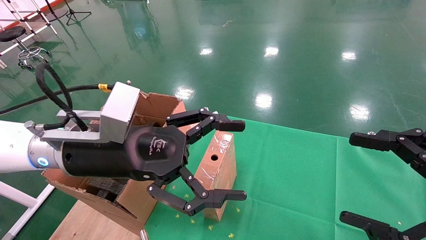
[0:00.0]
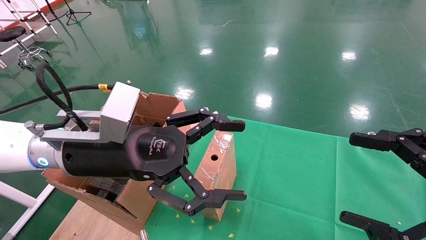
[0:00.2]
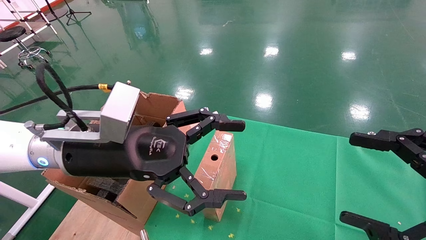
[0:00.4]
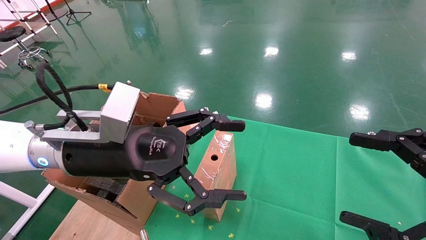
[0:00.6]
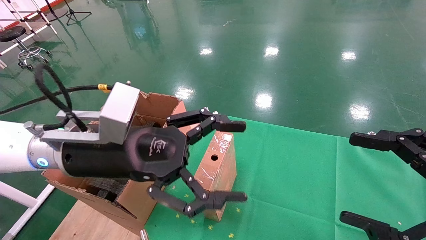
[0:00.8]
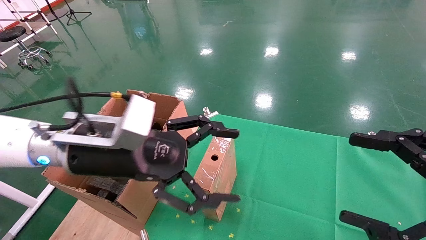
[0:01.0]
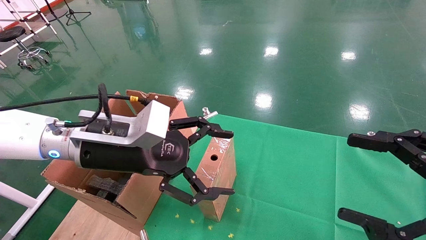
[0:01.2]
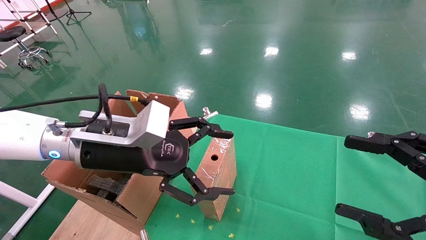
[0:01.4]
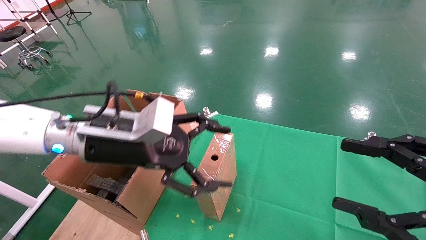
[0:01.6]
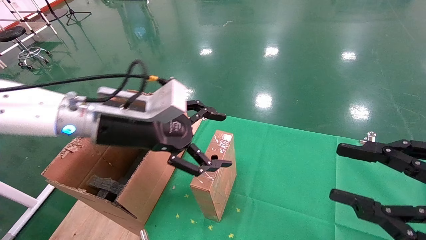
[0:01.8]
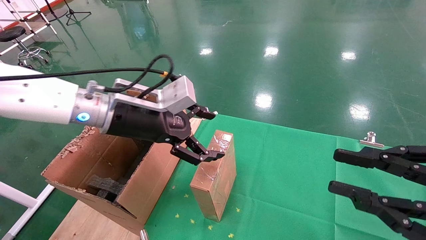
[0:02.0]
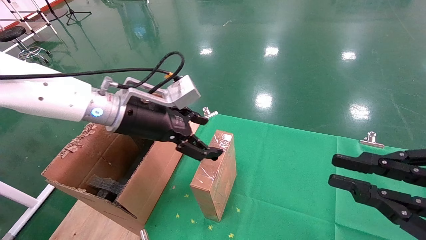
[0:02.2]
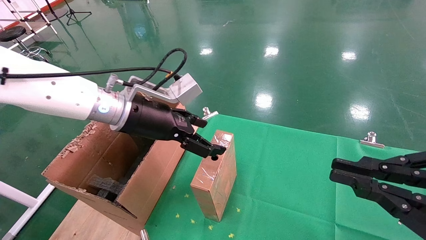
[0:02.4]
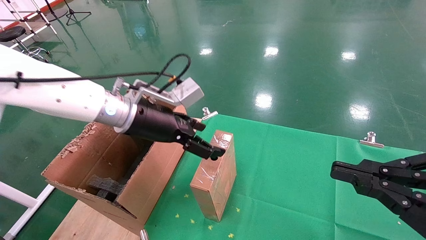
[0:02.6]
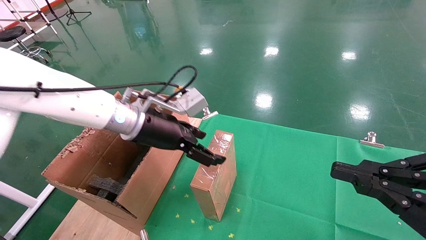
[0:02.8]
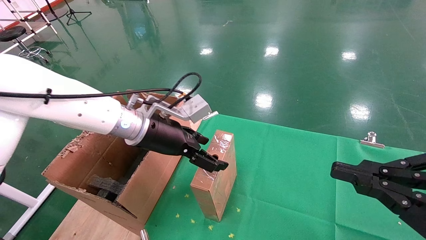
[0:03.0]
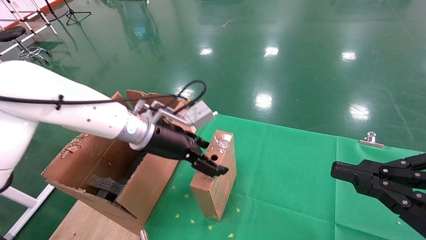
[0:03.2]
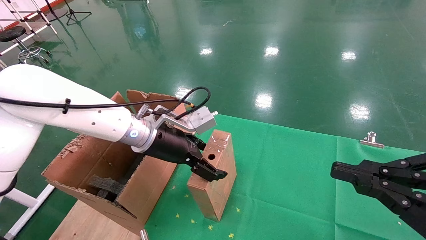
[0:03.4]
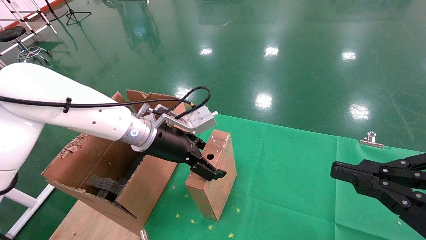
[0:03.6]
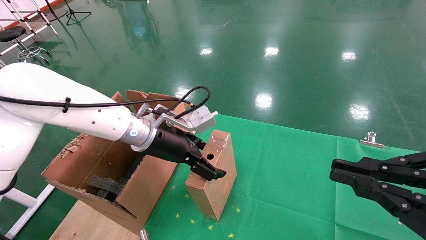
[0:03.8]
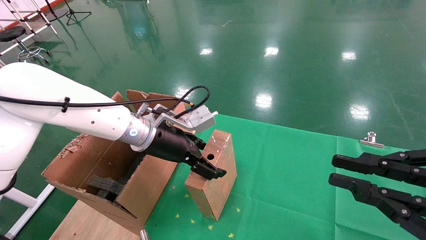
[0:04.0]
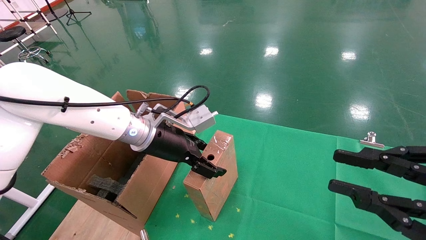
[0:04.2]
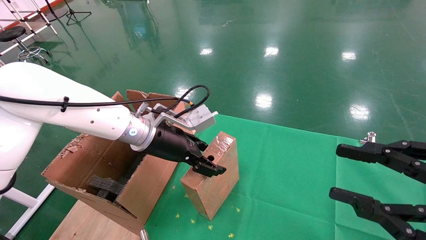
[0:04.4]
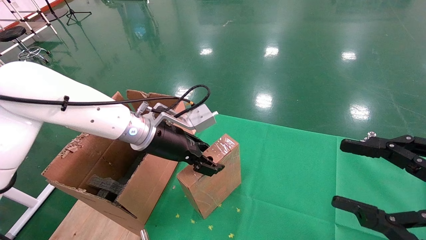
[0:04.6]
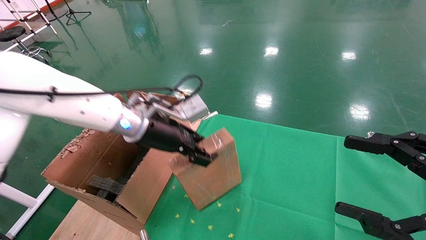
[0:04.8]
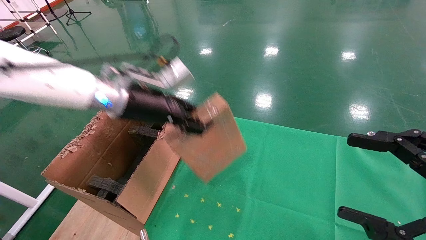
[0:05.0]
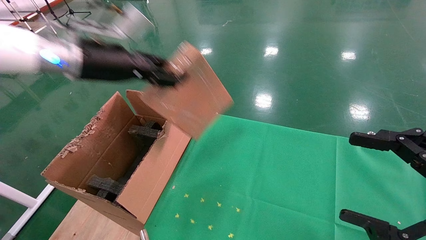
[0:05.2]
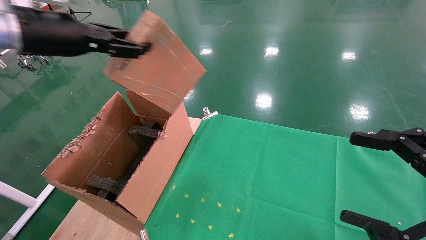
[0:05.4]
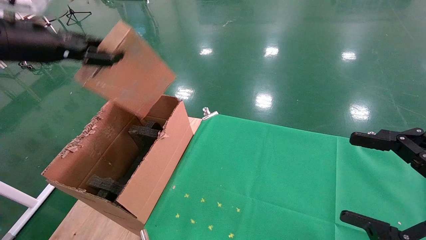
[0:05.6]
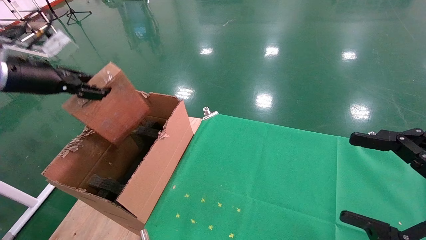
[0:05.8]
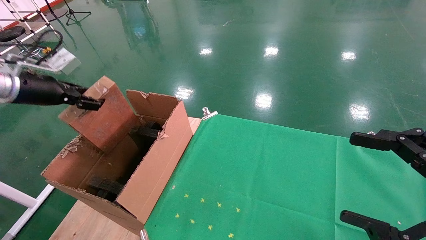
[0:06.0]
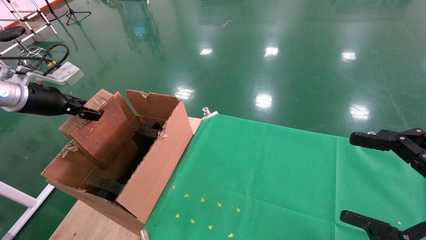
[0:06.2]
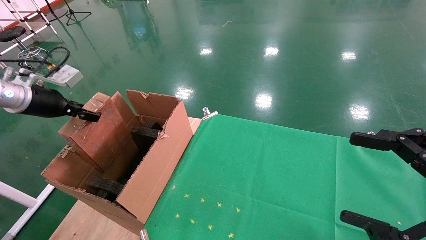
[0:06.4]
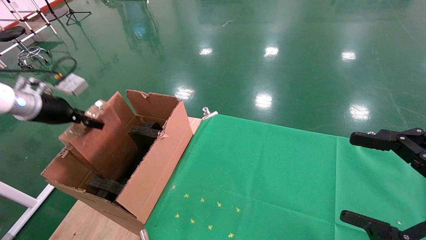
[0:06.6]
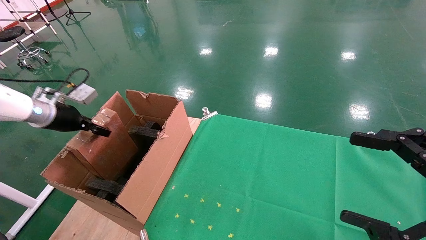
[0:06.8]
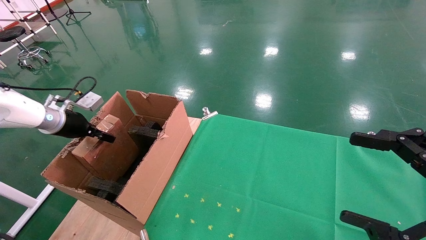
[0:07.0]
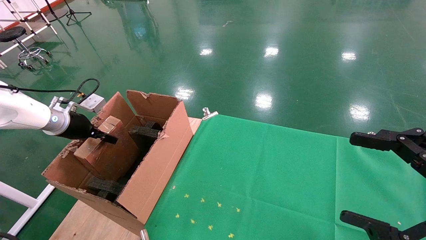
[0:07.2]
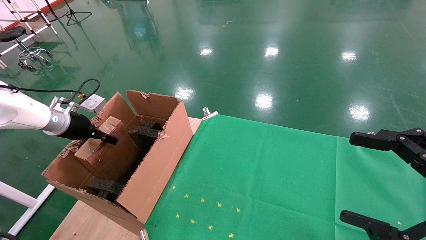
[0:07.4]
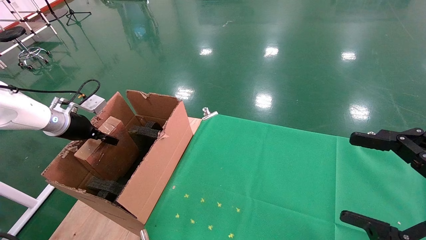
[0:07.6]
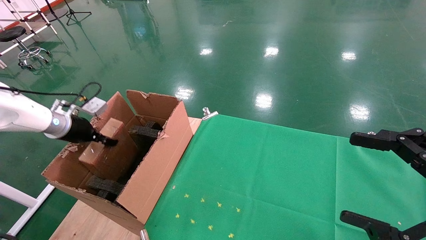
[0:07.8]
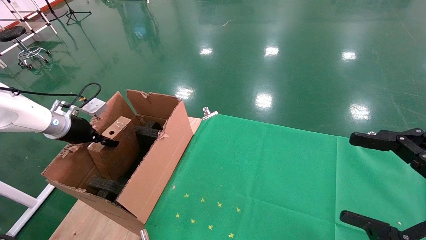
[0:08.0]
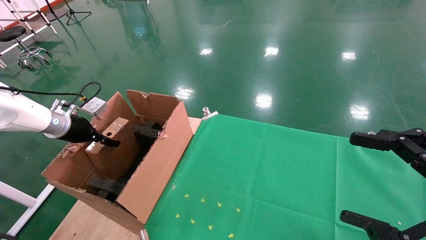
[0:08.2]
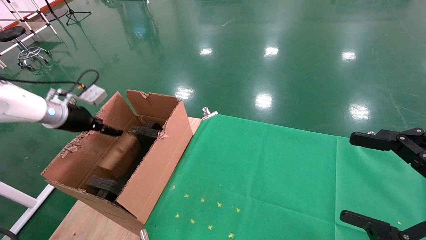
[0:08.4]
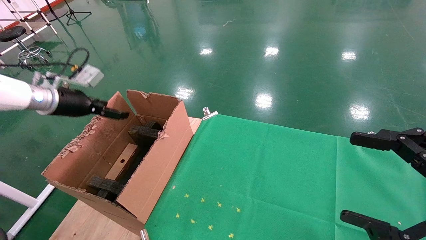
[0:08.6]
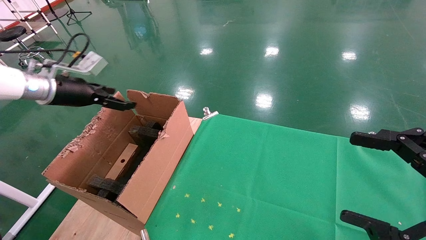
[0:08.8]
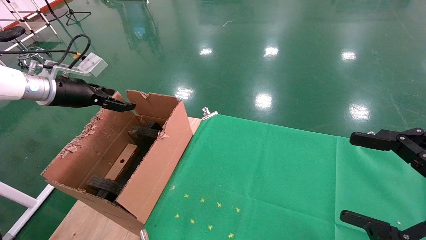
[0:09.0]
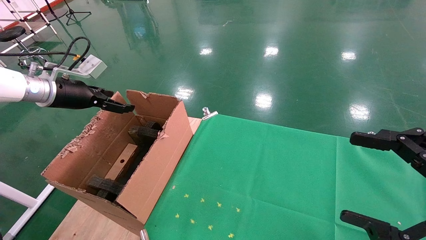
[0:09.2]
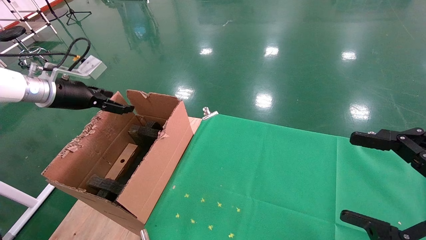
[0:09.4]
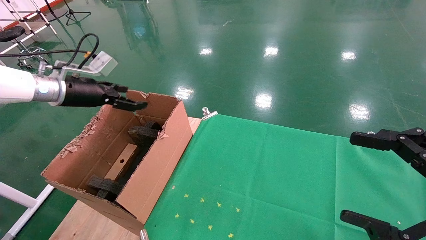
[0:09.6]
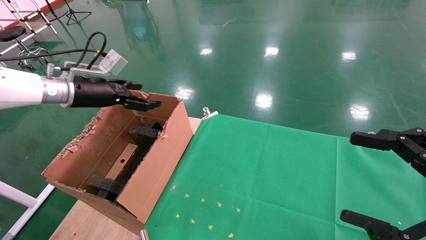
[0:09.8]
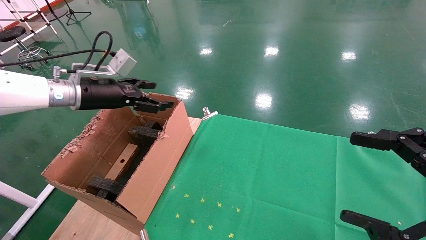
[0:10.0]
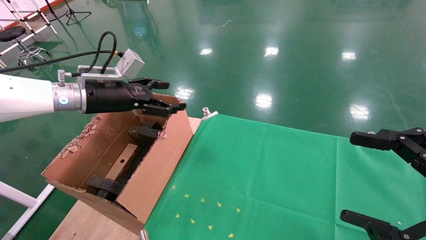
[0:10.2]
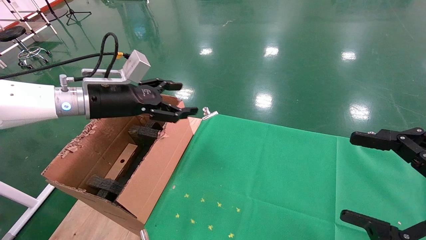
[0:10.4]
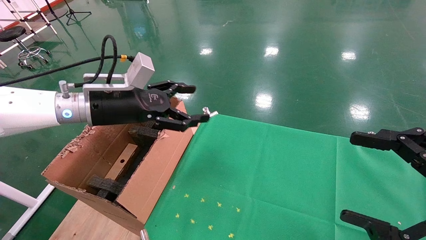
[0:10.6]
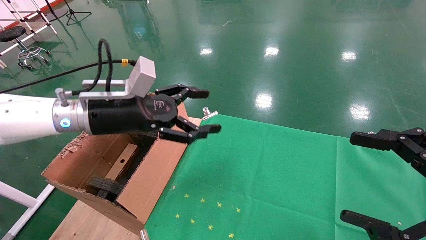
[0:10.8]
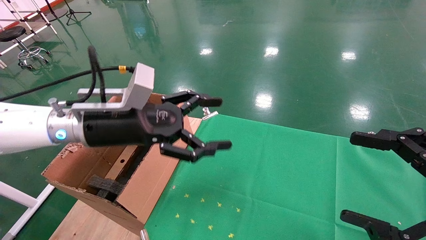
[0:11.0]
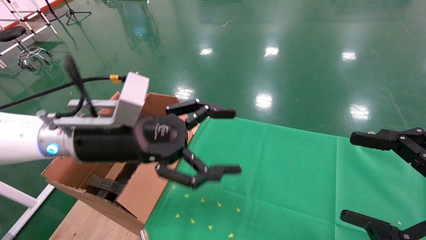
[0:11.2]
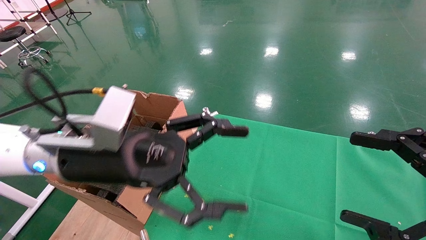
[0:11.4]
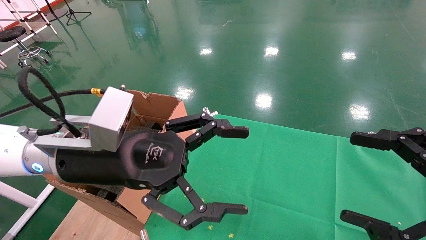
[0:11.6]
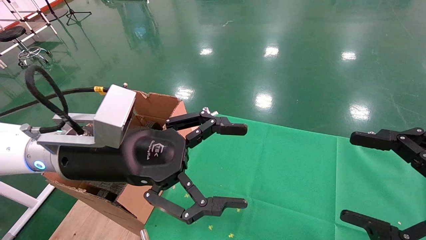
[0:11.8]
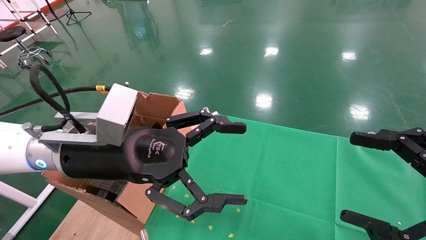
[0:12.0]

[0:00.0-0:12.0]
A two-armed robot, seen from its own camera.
Task of the whole recording: using a robotic arm to pick up a cardboard box and palace it the carton.
Step, 1.2 to 4.6 s: Pick up the mouse and the power cord paper box.
Step, 4.8 to 8.2 s: Place the mouse and the power cord paper box into the container.
1.6 to 3.0 s: The right gripper closes its fingers; the left gripper is displaced forward by about 10 cm.
3.0 to 4.4 s: There are only small adjustments of the grippers.
4.4 to 6.0 s: The right gripper opens its fingers. The left gripper heads to the left, covering approximately 30 cm, and closes.
6.0 to 7.6 s: The left gripper travels downward and forward by about 15 cm.
7.6 to 9.0 s: The left gripper moves upward, some 10 cm, and opens.
9.0 to 10.4 s: The left gripper shifts approximately 15 cm to the right.
10.4 to 12.0 s: The left gripper is displaced backward and to the right by about 15 cm.

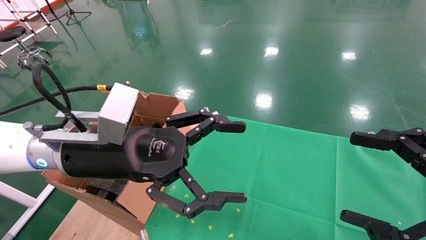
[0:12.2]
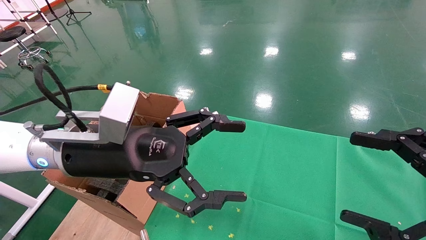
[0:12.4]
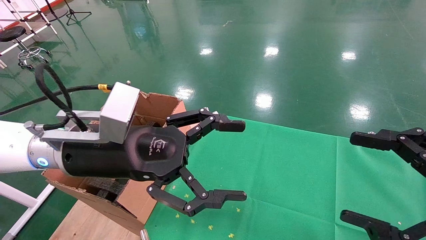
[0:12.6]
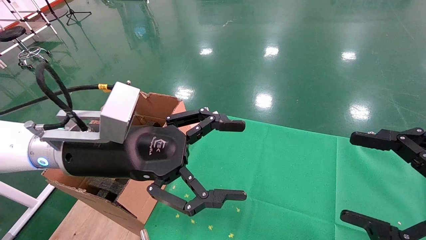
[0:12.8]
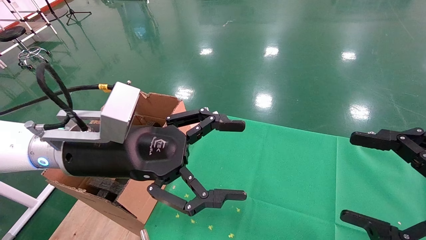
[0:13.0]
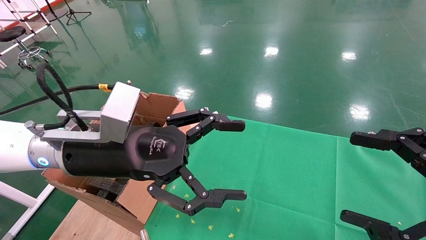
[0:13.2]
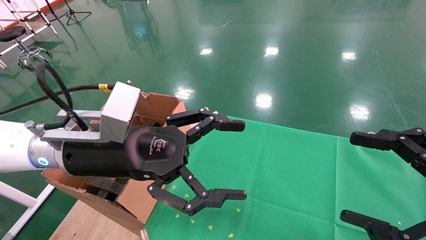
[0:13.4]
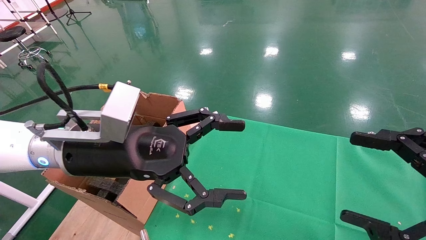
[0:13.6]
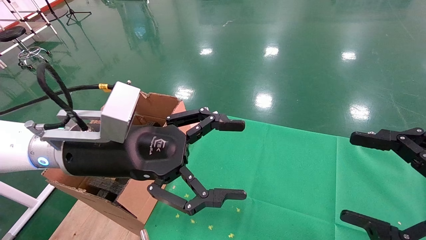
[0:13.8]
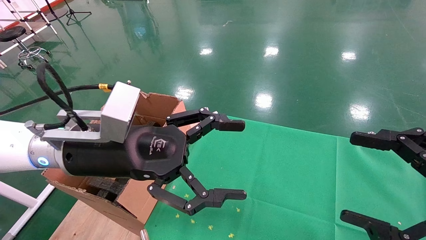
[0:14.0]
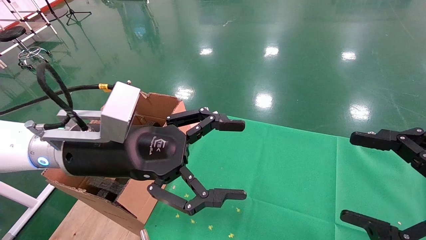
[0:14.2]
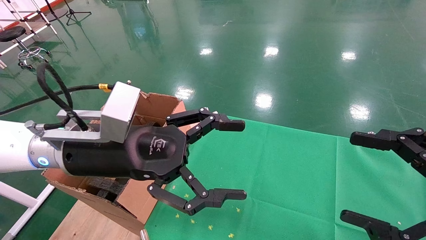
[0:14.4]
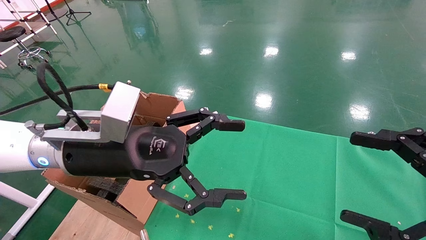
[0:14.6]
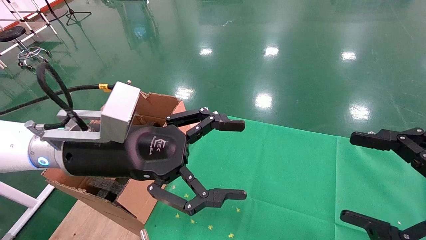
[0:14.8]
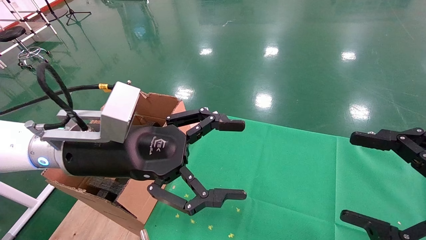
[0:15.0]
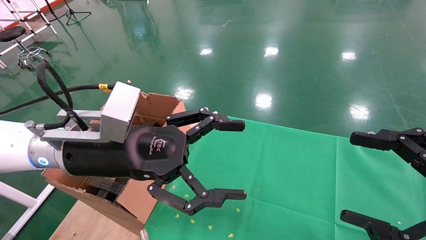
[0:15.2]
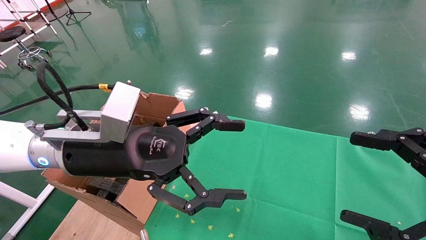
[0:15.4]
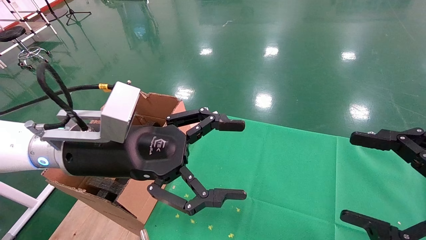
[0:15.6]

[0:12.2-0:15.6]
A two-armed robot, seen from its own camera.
Task of the whole recording: using a robotic arm to pick up a cardboard box and palace it the carton.
12.2 to 15.6 s: The two grippers keep their place.

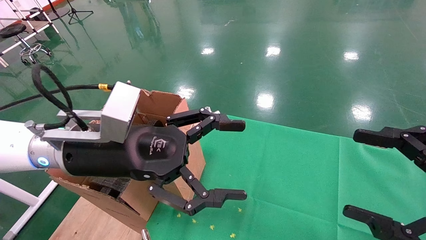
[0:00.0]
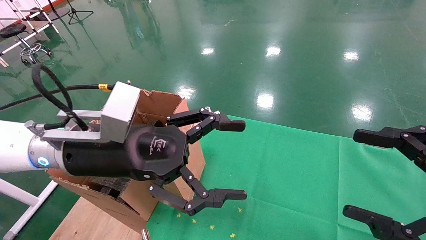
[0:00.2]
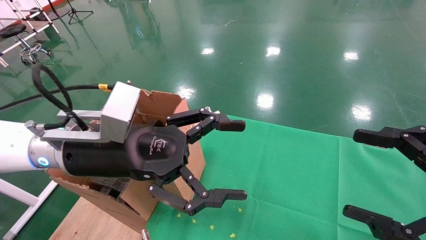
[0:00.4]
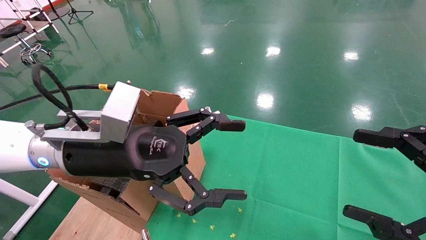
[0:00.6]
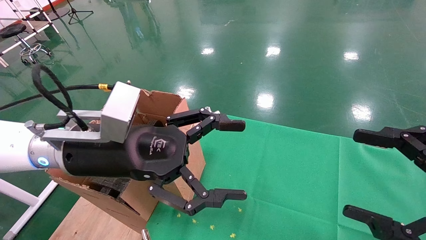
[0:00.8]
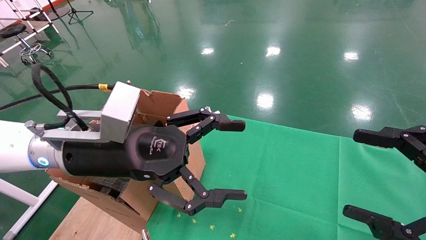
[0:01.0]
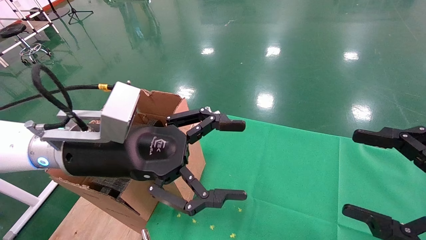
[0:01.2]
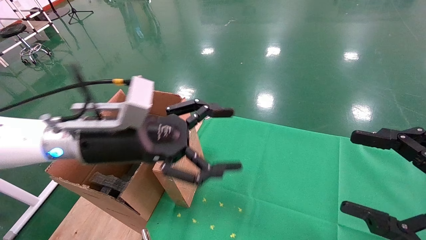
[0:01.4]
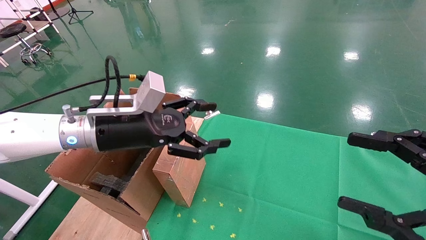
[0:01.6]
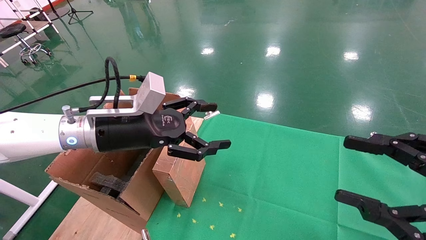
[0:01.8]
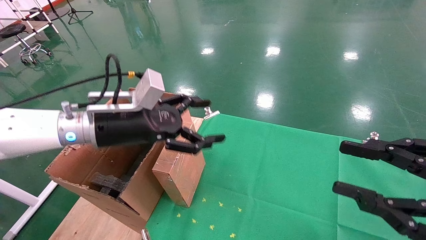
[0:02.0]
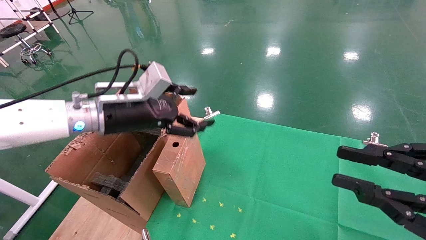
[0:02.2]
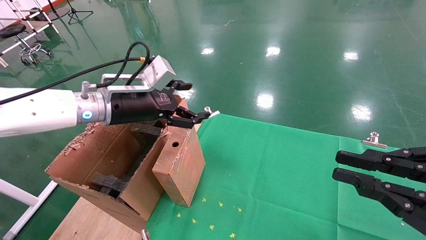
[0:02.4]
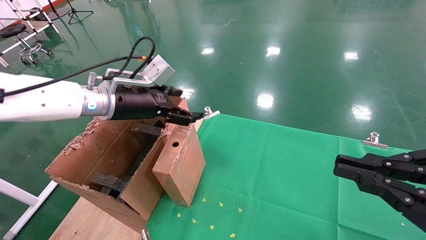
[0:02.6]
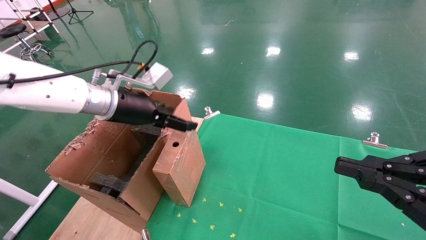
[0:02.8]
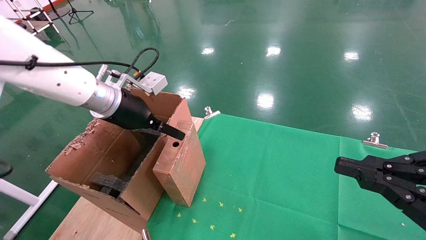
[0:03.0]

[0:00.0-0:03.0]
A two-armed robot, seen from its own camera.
Task of the whole recording: using a robotic arm to pick up a cardboard box and palace it the carton.
0.0 to 1.6 s: The left gripper goes about 5 cm forward.
1.6 to 3.0 s: The left gripper moves forward, some 5 cm. Meanwhile the right gripper closes.
